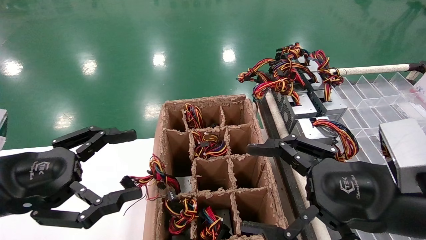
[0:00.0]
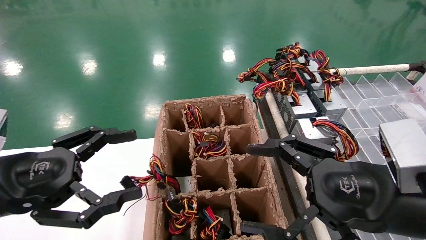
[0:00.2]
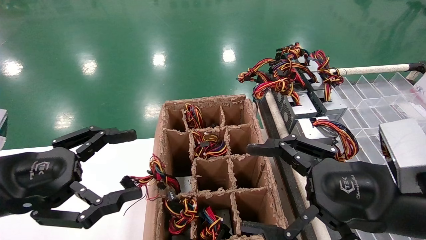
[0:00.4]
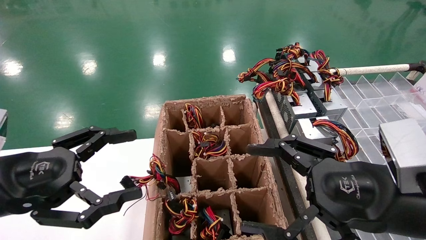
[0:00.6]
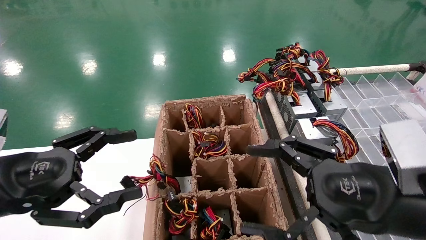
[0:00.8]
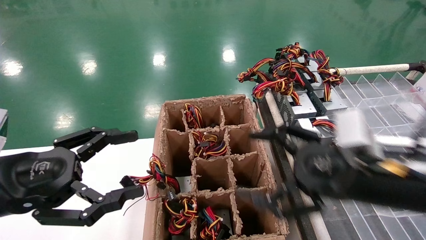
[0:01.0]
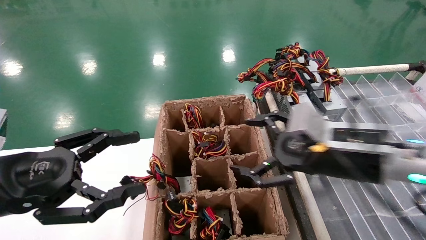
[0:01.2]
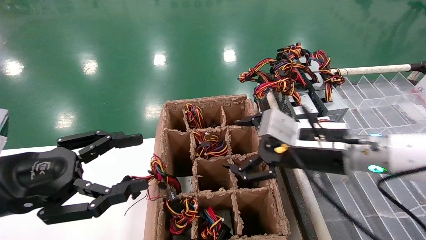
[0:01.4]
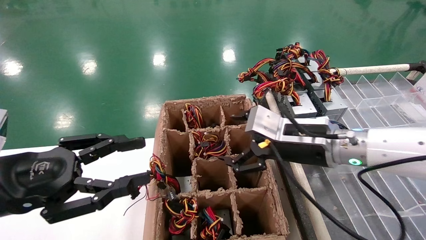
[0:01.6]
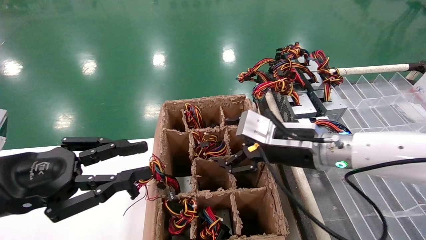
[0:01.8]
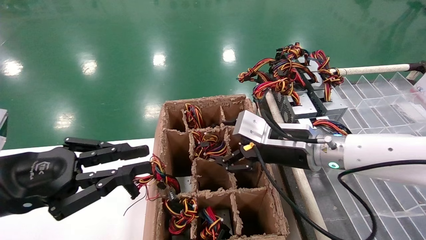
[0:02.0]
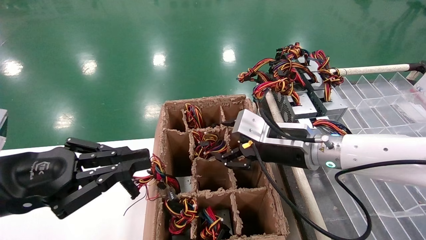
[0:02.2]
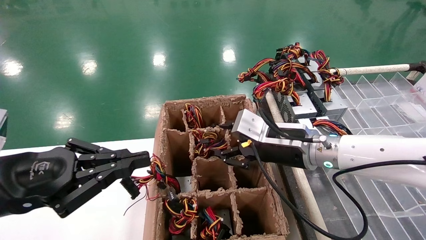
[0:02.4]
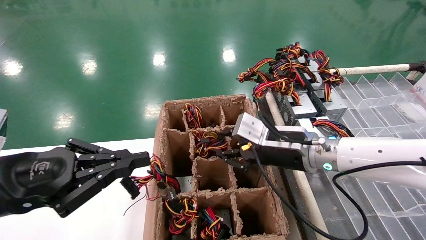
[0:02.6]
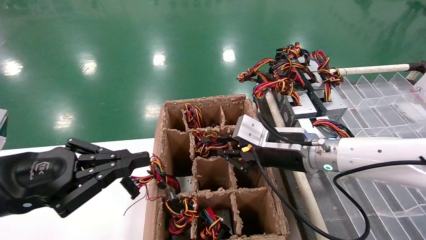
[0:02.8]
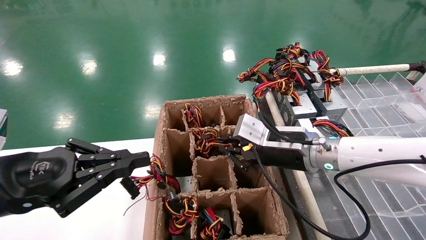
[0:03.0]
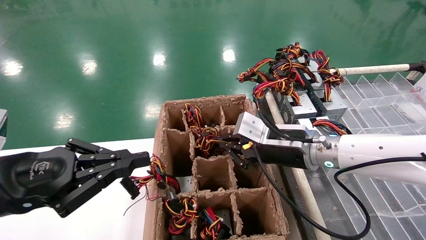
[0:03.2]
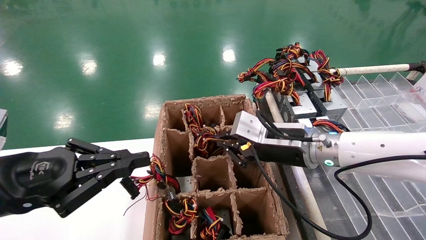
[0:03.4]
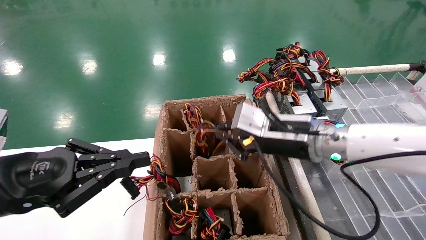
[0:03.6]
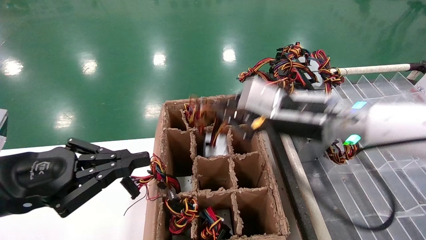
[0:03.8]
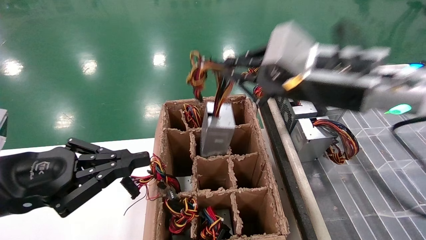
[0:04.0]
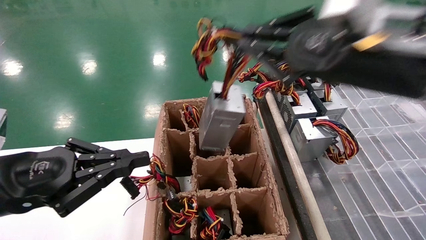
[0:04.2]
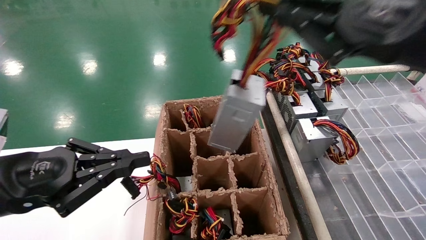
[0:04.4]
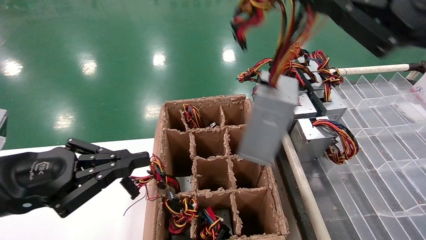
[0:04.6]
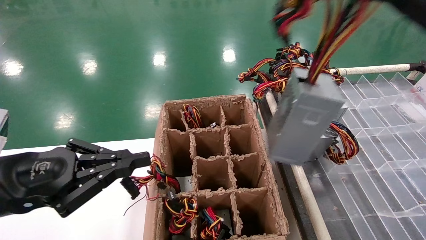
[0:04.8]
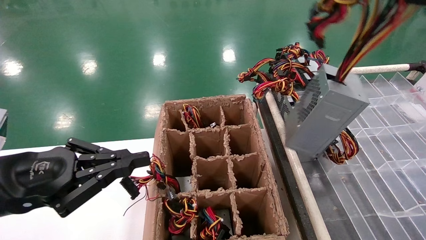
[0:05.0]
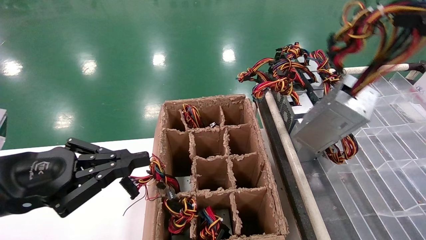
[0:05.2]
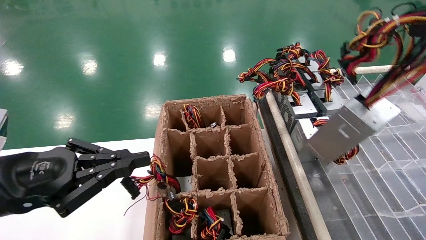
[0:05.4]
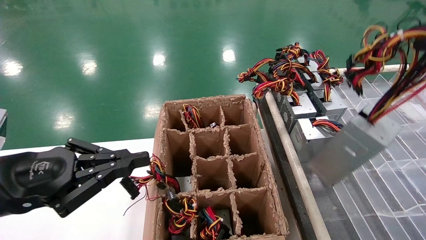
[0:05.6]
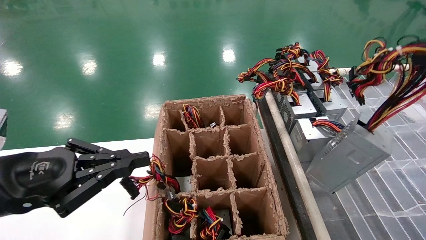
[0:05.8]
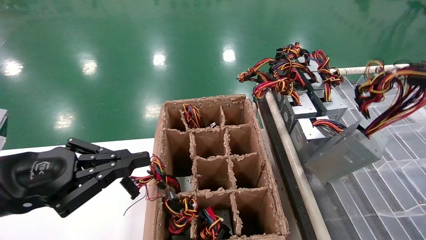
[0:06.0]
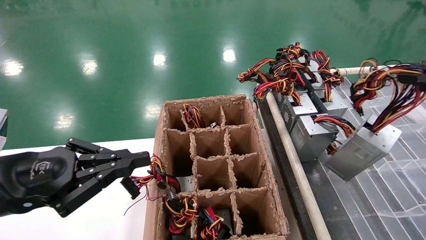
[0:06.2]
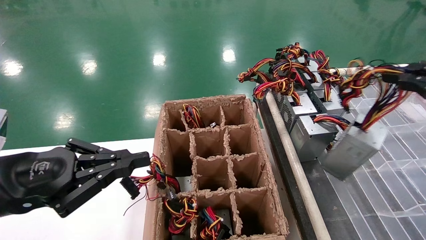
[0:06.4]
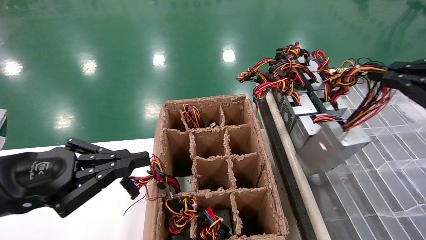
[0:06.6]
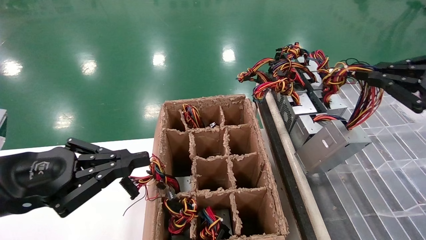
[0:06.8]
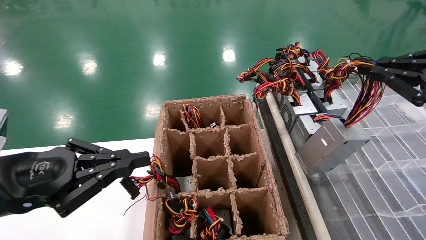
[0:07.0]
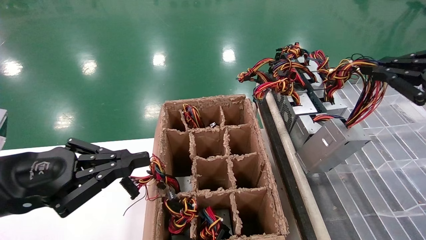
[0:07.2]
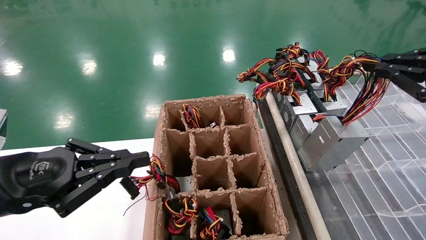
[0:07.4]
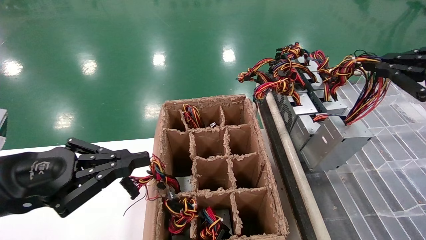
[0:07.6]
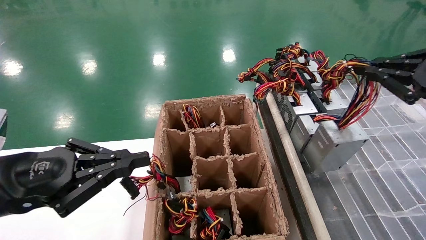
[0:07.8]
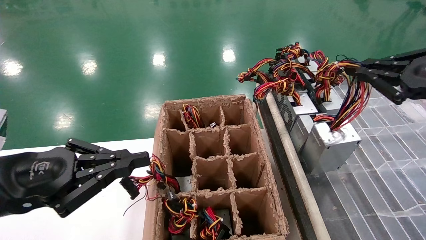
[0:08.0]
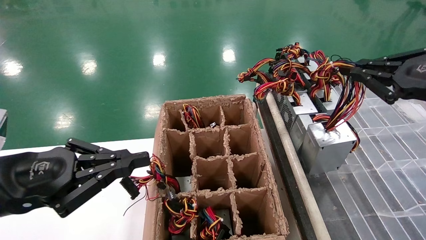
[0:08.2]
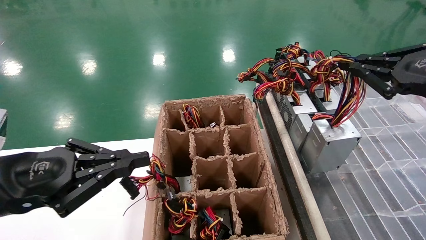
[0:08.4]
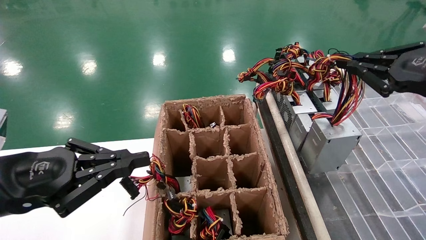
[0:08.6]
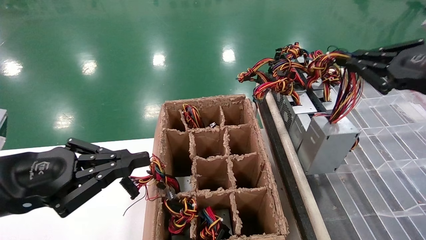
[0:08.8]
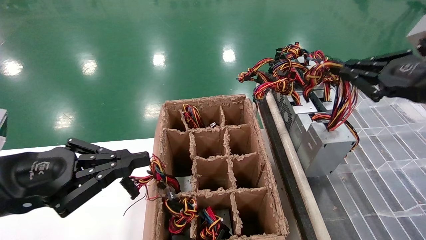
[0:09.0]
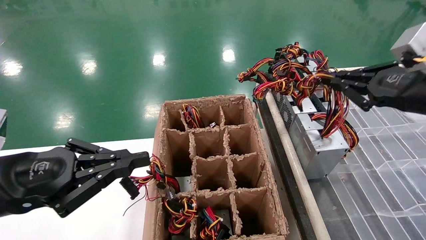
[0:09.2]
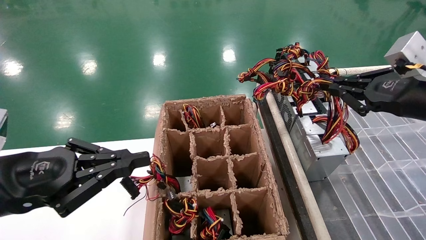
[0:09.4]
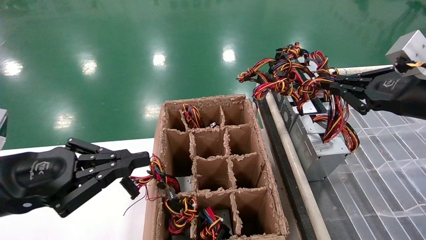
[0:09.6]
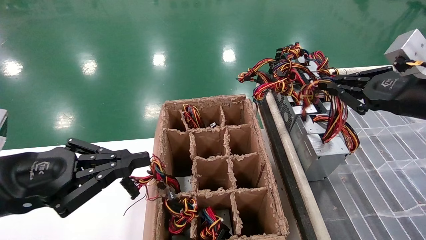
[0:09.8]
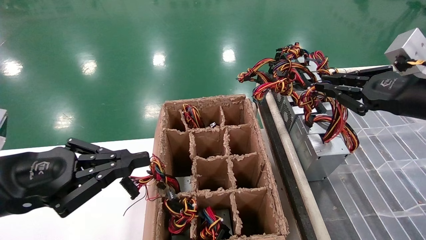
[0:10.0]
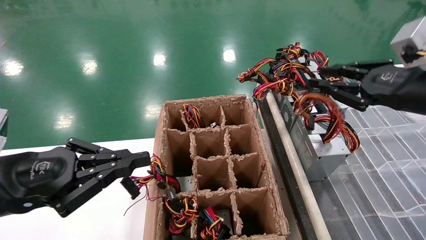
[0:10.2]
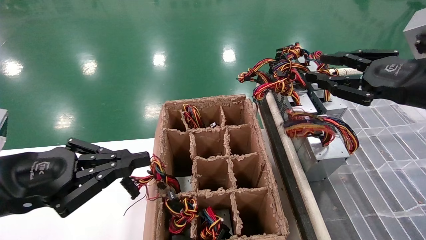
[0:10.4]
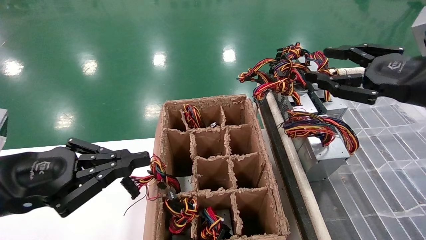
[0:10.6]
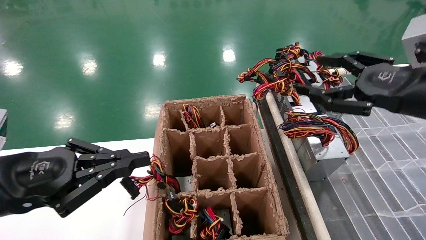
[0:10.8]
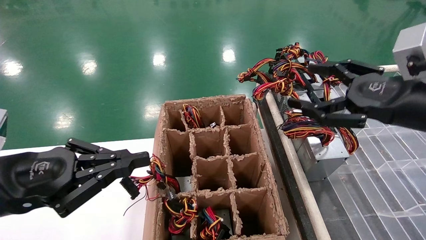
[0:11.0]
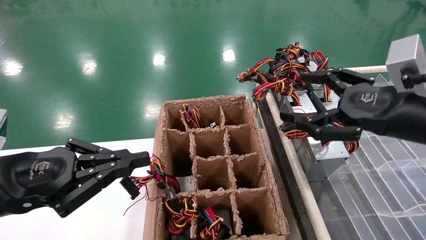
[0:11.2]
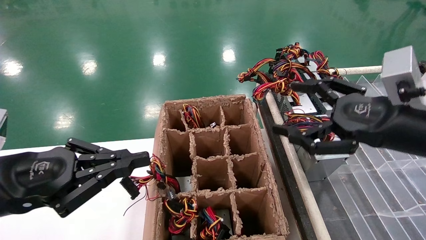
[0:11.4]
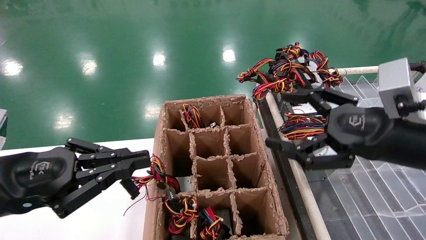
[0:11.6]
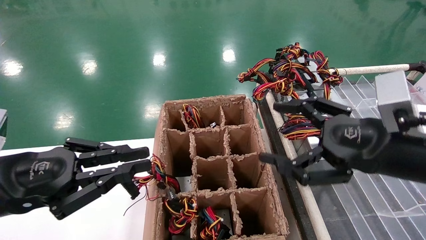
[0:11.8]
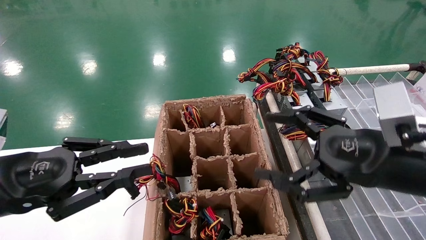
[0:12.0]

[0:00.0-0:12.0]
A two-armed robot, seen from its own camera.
Step, 0:01.2 to 0:03.0: Grab the main unit power supply from the containment box.
Step, 0:03.2 to 0:10.2: Place the main unit power supply in the designated area.
0:00.0 to 0:01.6: The left gripper closes up. Meanwhile the right gripper moves forward and to the left, about 15 cm.
0:01.6 to 0:03.0: The left gripper closes. Meanwhile the right gripper closes up.
0:03.0 to 0:04.4: The right gripper goes some 25 cm upward, backward and to the right.
0:04.4 to 0:06.0: The right gripper goes roughly 15 cm to the right and backward.
0:06.0 to 0:07.6: The right gripper is displaced forward by about 10 cm.
0:07.6 to 0:09.0: The right gripper heads forward, covering some 5 cm.
0:09.0 to 0:10.4: The grippers make only small movements.
0:10.4 to 0:12.0: The right gripper heads to the left and downward, covering approximately 10 cm, and opens up.

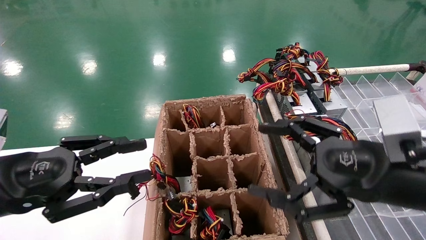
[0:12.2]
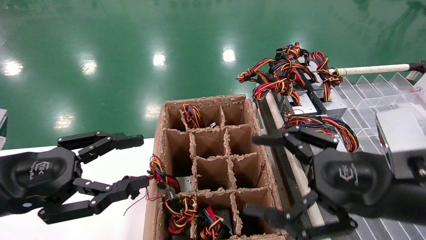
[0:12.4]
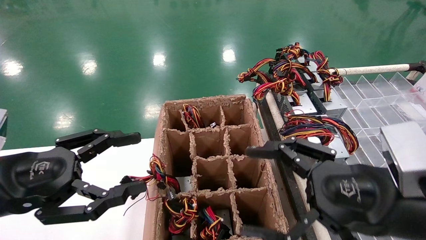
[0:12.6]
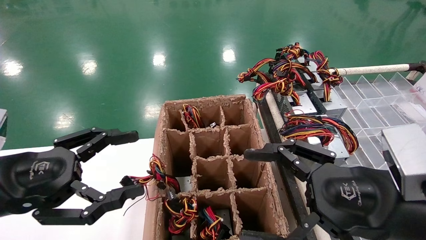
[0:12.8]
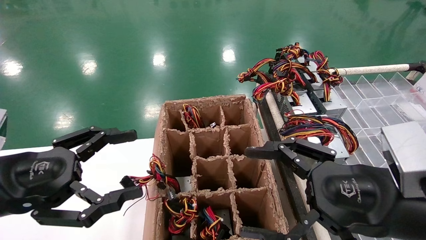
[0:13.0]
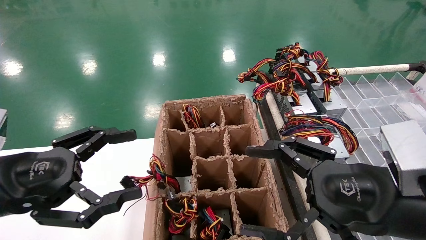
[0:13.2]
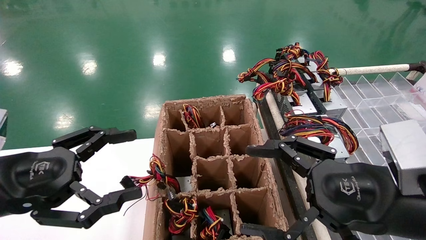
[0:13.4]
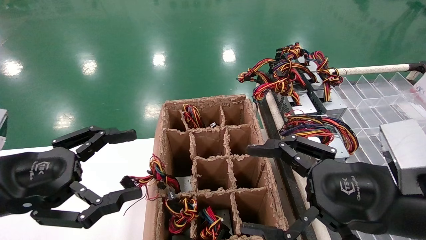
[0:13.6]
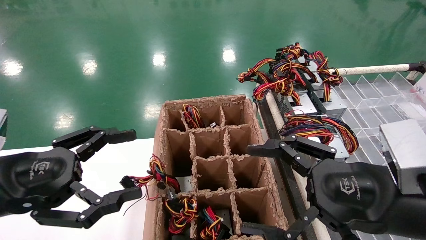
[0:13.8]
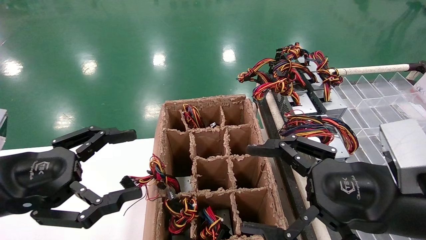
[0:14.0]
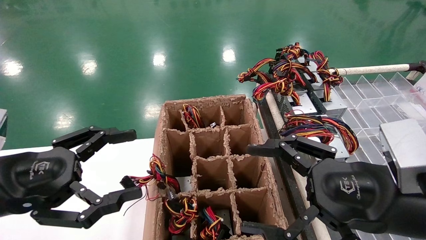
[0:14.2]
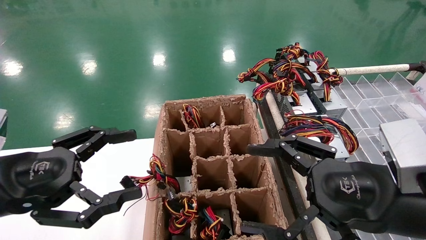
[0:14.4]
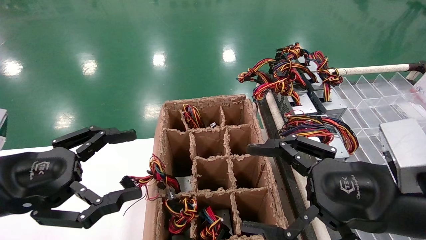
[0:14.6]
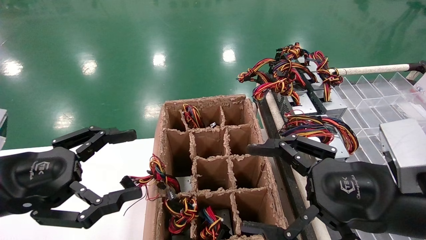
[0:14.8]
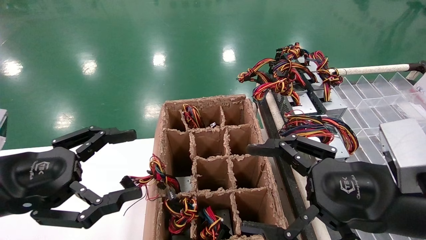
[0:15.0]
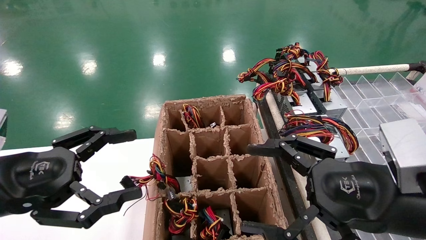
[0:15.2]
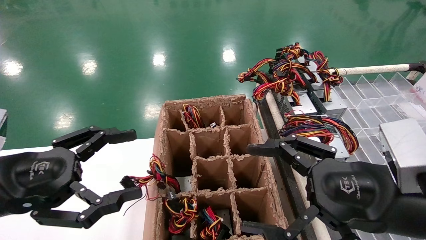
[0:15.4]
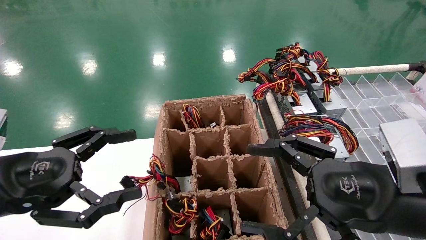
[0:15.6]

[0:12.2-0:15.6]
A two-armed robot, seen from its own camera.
0:12.2 to 0:13.8: The left gripper opens its fingers.
0:13.8 to 0:15.6: Both grippers stay put.
